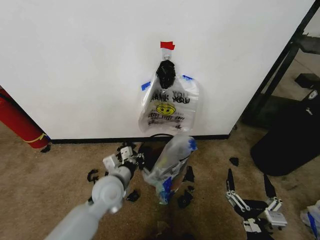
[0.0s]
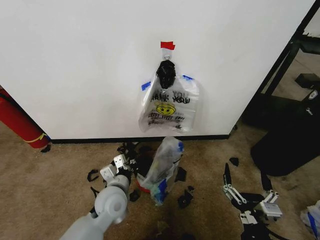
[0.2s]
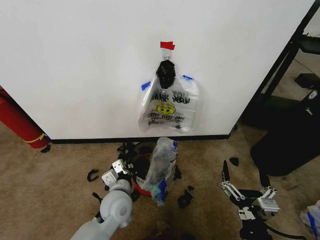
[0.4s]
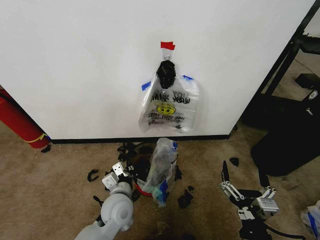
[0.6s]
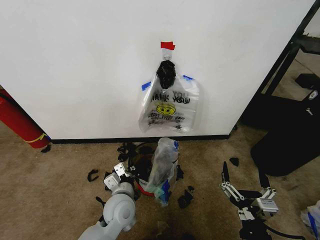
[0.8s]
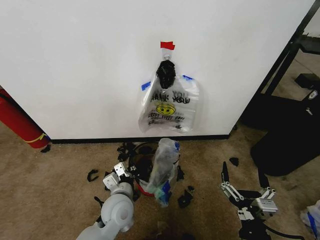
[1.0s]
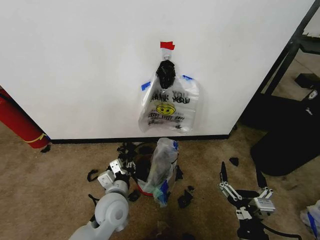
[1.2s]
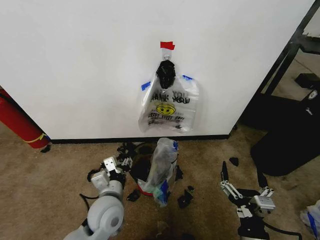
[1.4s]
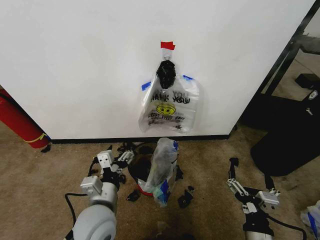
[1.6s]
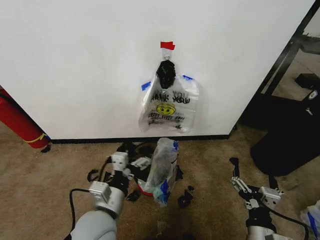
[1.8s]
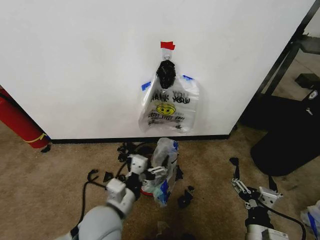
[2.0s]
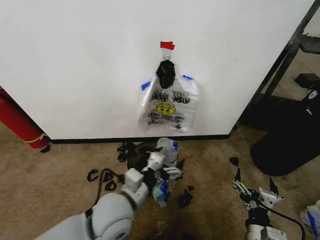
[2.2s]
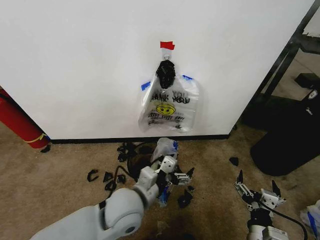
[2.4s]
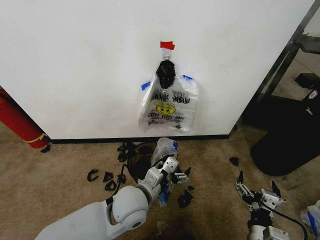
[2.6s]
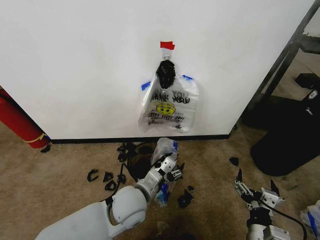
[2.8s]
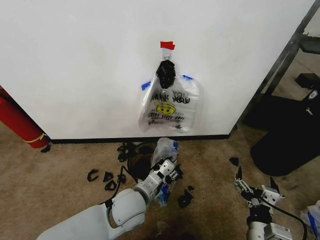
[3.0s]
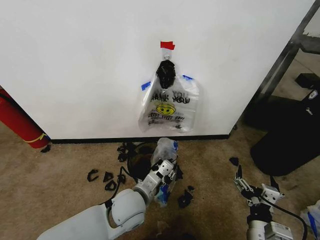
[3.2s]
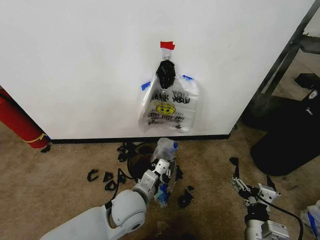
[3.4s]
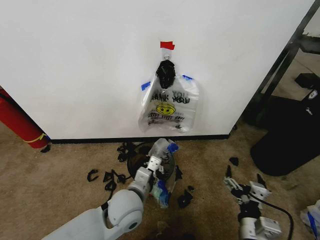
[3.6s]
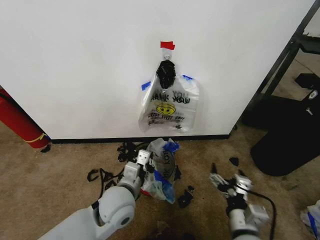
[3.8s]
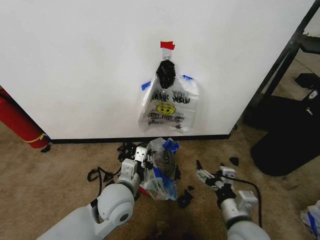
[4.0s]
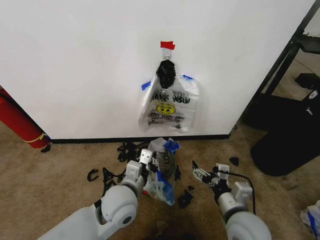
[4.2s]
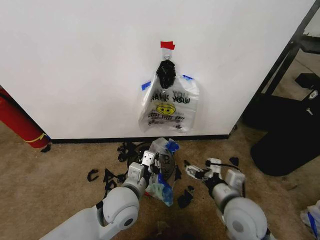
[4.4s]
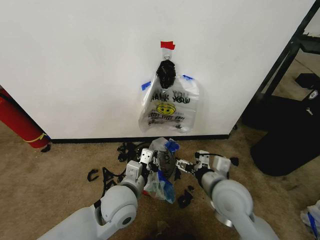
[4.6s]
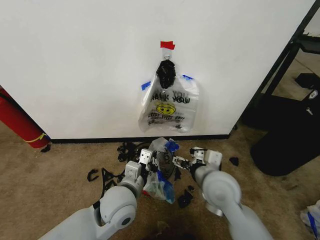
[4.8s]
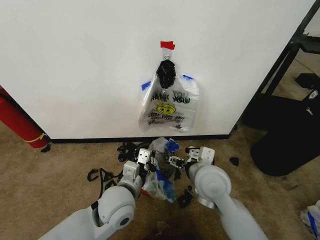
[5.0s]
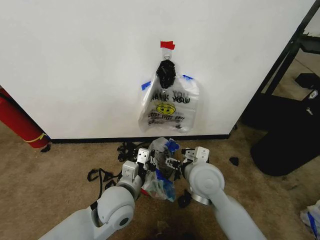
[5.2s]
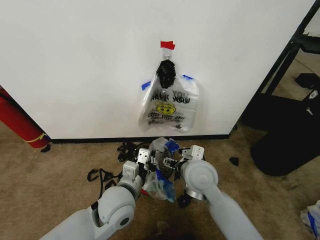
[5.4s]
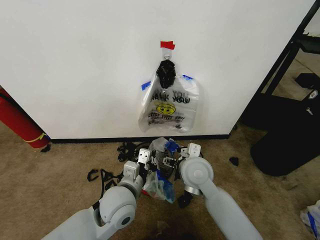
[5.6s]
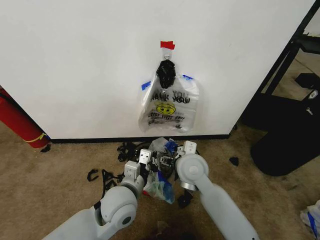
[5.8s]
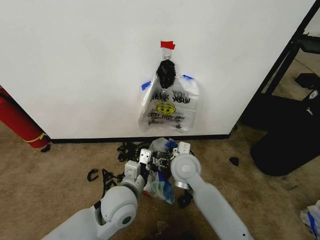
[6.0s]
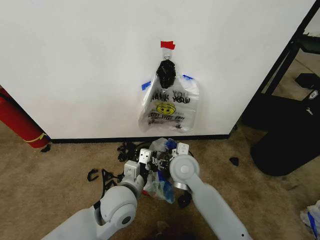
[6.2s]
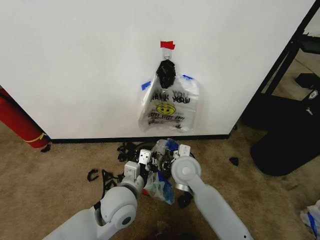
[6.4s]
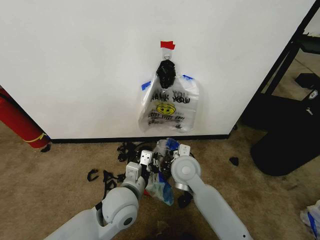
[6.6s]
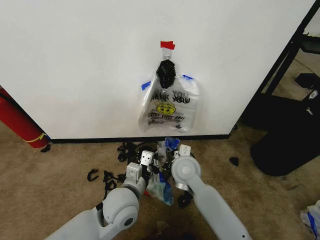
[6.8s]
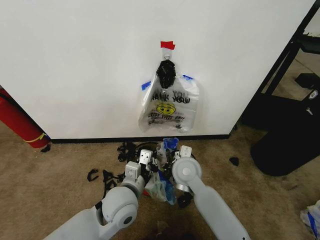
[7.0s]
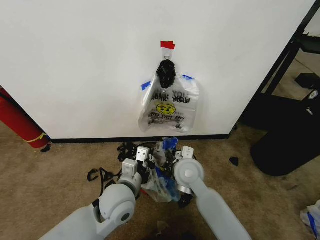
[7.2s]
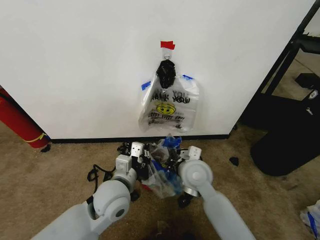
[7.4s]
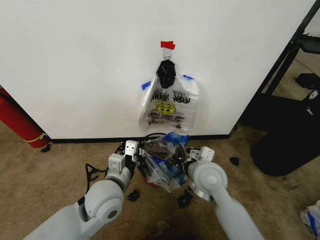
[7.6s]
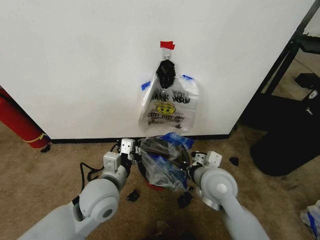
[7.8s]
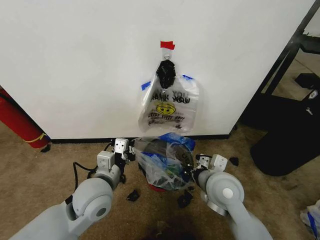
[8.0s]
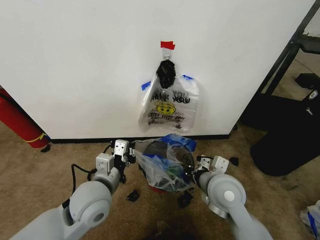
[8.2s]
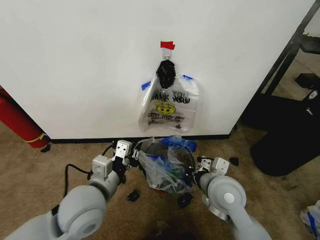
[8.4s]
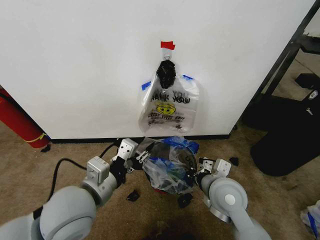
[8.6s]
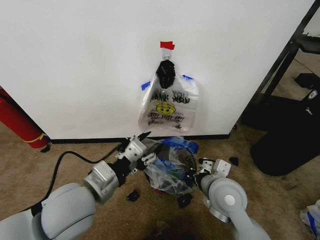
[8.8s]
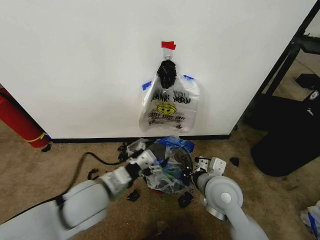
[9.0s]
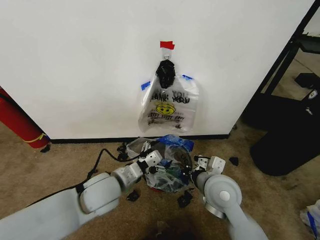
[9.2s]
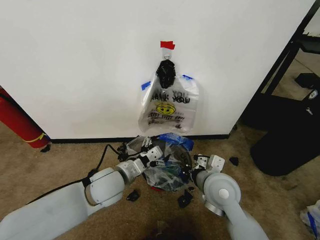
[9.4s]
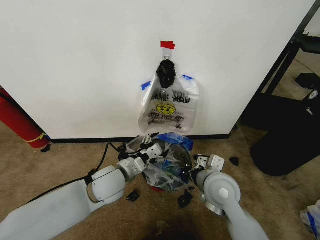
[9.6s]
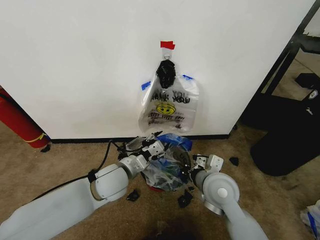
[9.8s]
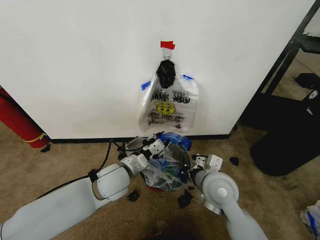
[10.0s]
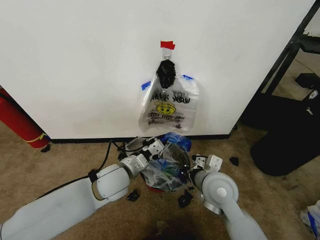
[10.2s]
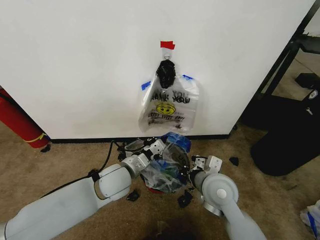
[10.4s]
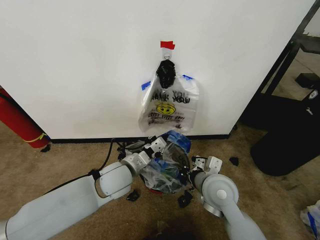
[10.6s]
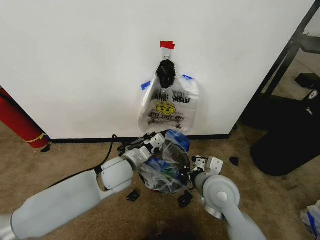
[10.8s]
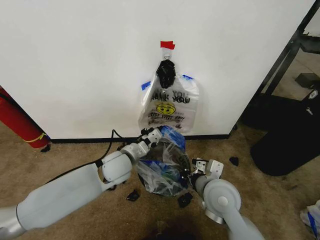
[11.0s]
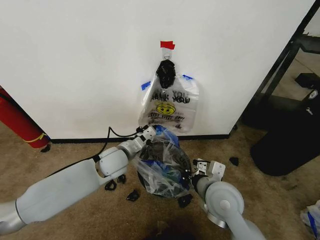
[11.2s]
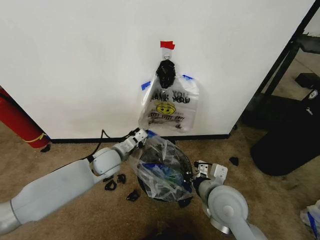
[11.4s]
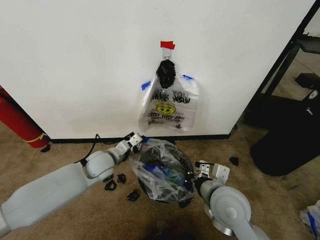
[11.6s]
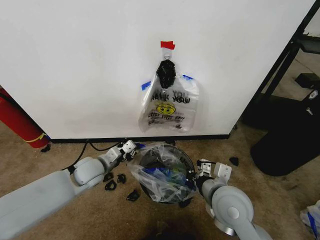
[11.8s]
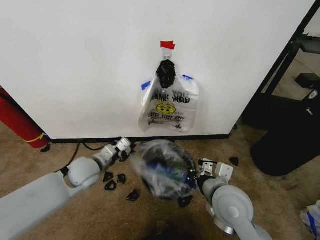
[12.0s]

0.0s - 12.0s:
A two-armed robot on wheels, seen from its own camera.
Task of the whole recording: Pick up the garbage bag from the wall and place it over the trash bin.
0.0s - 1.6s: The left gripper moves backward, roughly 10 cm, and opens.
1.6s - 3.0s: The left gripper goes approximately 10 cm to the right and forward, and closes.
3.0s - 4.4s: The right gripper is displaced forward and upward by some 10 cm; the left gripper closes.
4.4s - 6.0s: The right gripper shifts roughly 20 cm forward and to the left.
6.0s - 7.6s: The right gripper shifts approximately 5 cm to the right, and closes up.
7.6s - 9.0s: The left gripper opens up. The right gripper ends up about 5 cm from where it was.
9.0s - 10.4s: The left gripper travels forward and downward by roughly 10 cm, and closes up.
10.4s - 12.0s: The left gripper moves to the left, approximately 10 cm.

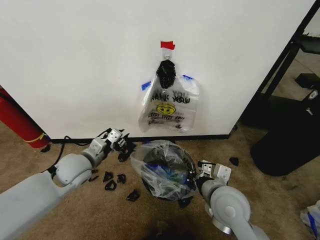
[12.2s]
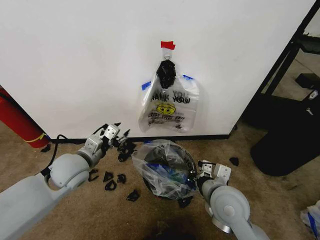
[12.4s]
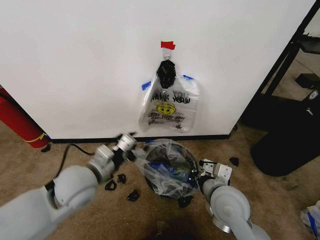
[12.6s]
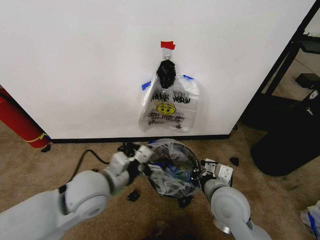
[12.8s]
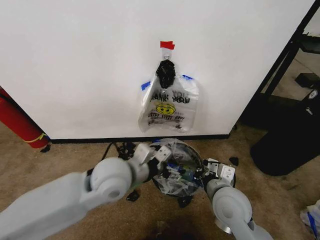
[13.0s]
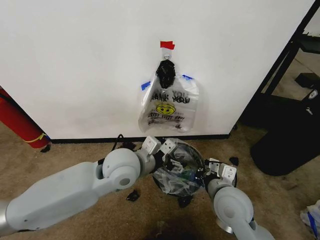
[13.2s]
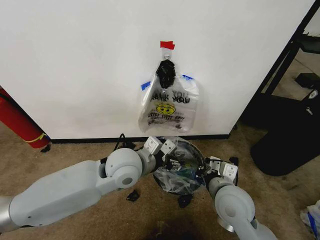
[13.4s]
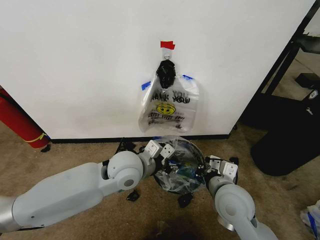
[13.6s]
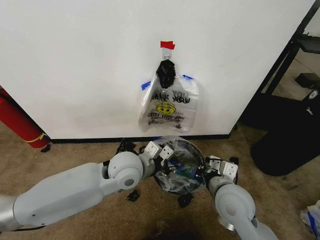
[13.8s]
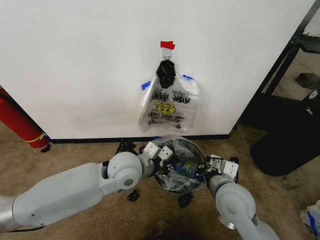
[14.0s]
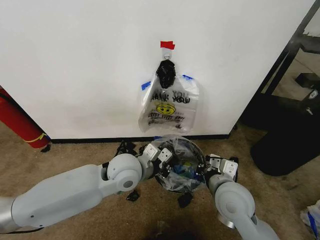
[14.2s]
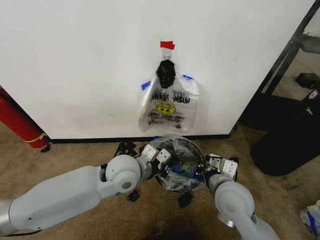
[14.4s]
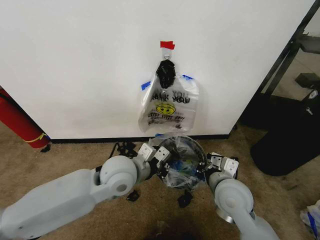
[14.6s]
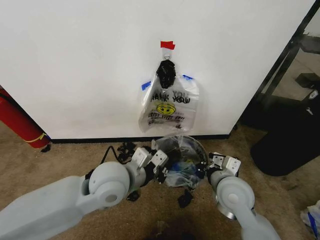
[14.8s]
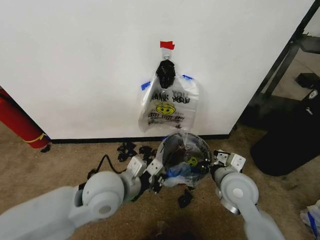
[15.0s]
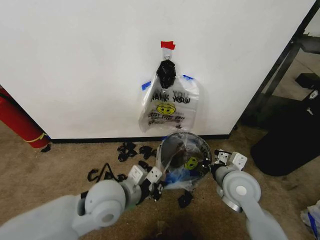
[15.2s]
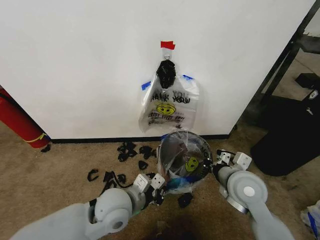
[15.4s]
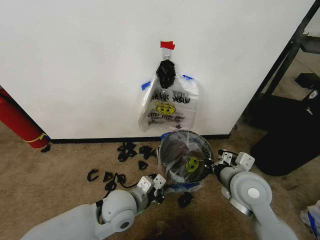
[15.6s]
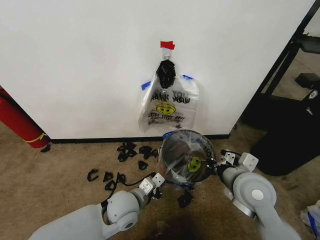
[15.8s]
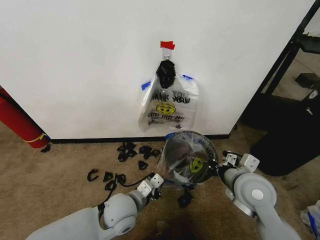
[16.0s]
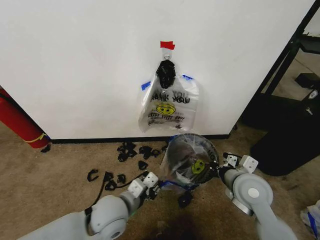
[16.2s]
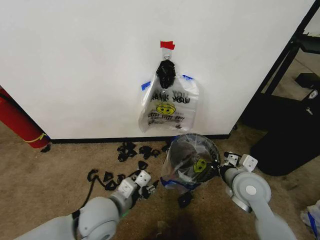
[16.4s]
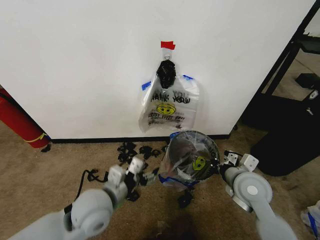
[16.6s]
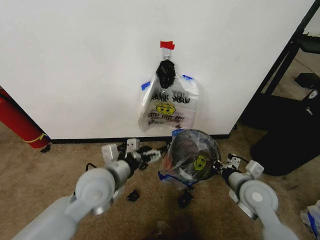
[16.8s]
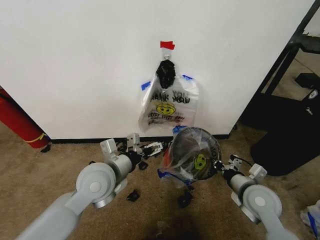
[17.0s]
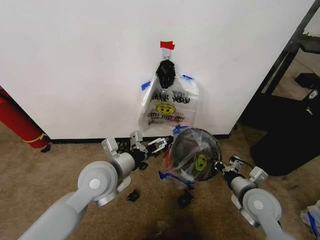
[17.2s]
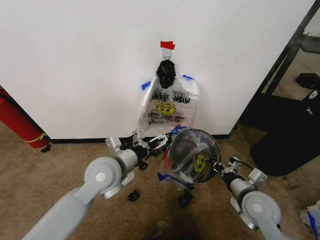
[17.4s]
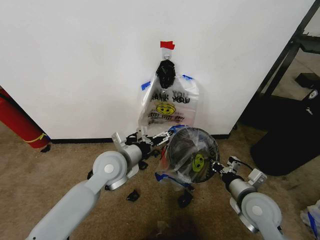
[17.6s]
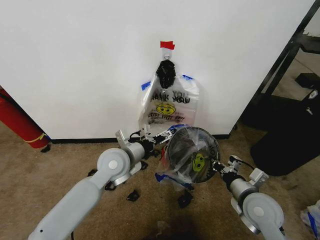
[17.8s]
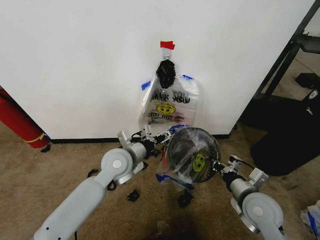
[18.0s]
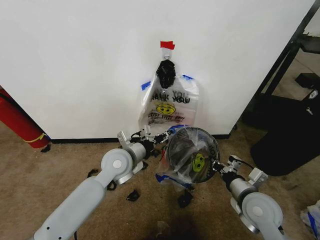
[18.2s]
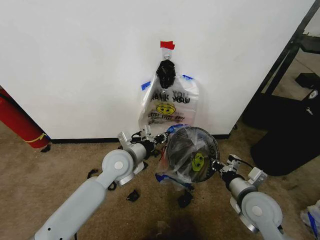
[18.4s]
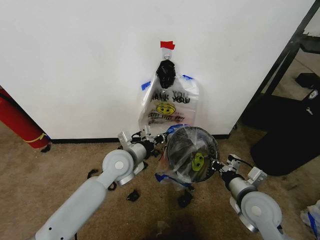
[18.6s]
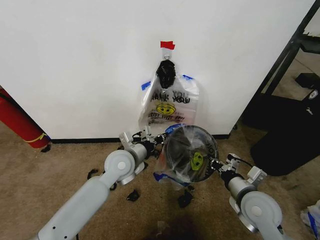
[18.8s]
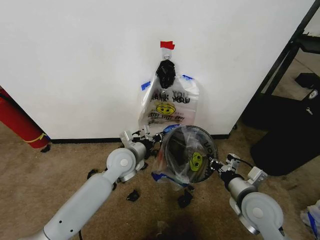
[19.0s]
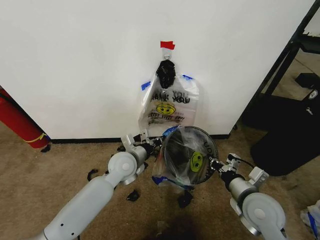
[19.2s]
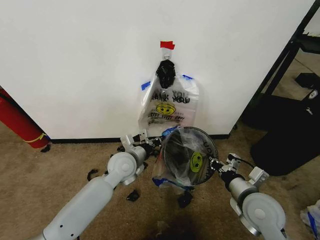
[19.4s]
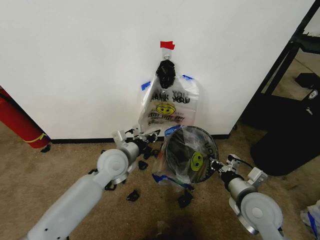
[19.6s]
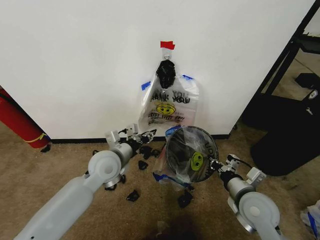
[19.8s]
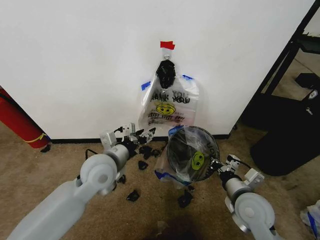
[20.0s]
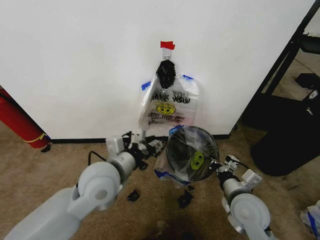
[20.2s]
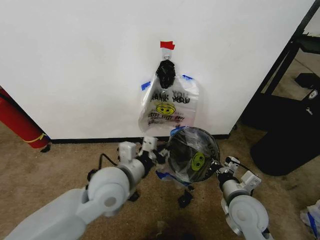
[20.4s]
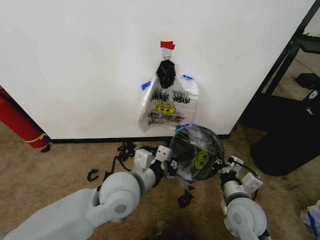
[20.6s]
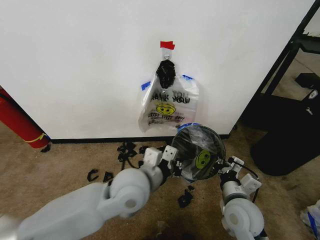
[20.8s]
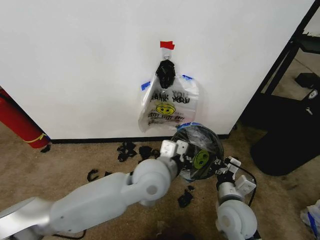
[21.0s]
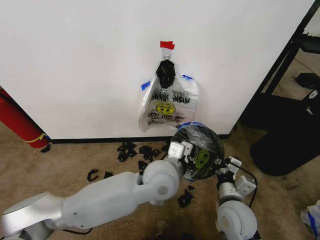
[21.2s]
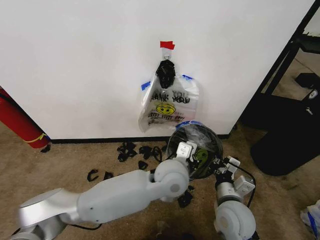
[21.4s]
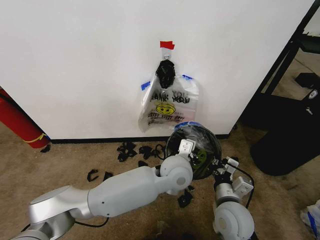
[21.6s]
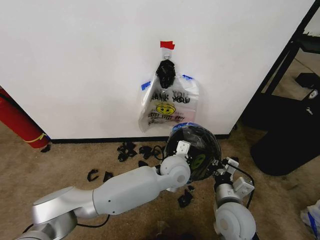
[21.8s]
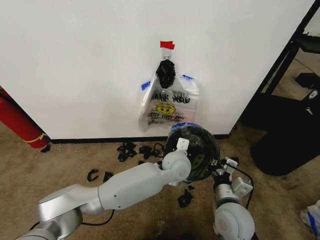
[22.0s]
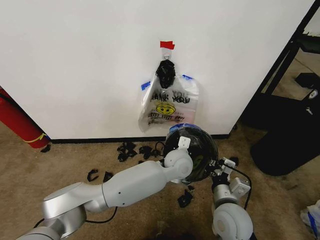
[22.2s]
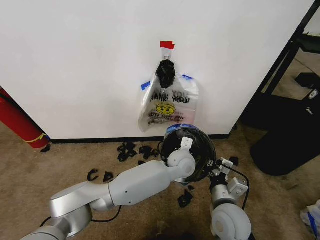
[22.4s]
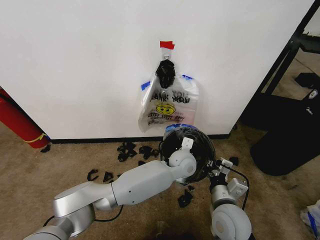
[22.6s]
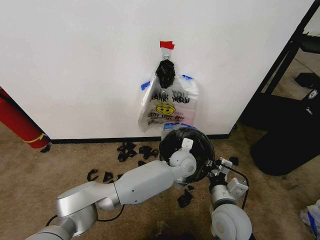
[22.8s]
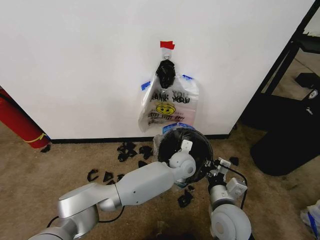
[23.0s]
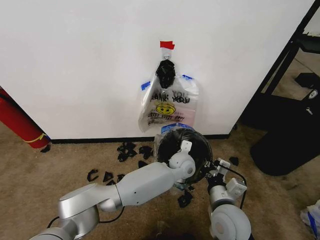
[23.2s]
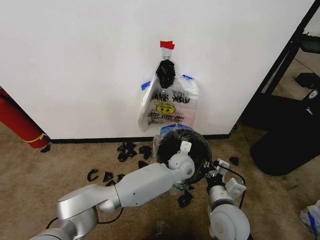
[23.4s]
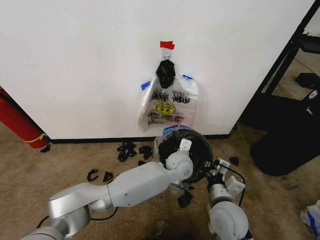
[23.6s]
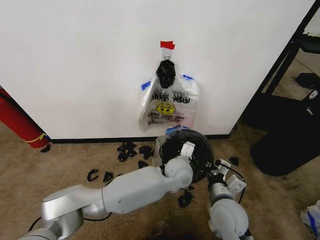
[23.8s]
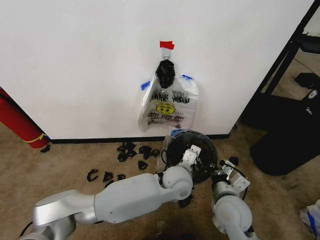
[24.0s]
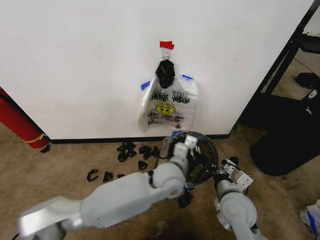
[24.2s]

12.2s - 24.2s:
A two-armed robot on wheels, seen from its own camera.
Task of the whole recording: Pick up the garbage bag from the wall and place it over the trash bin.
12.2s - 13.8s: The left gripper is displaced to the right by about 15 cm, and opens, then closes again.
13.8s - 15.2s: The right gripper ends up approximately 5 cm from where it was. Meanwhile the left gripper moves backward, roughly 10 cm, and closes its fingers.
15.2s - 16.6s: The left gripper travels downward and back again, roughly 10 cm each way, and opens up.
16.6s - 18.2s: The left gripper is displaced forward by roughly 10 cm, and closes, while the right gripper ends up roughly 5 cm from where it was.
18.2s - 19.8s: The left gripper closes, then opens again.
19.8s - 21.2s: The left gripper heads to the right, covering approximately 15 cm, and closes, while the right gripper goes roughly 5 cm to the left.
21.2s - 22.6s: The left gripper is displaced forward, downward and to the right by some 15 cm.
22.6s - 24.2s: The left gripper is displaced backward and to the left by roughly 10 cm.
